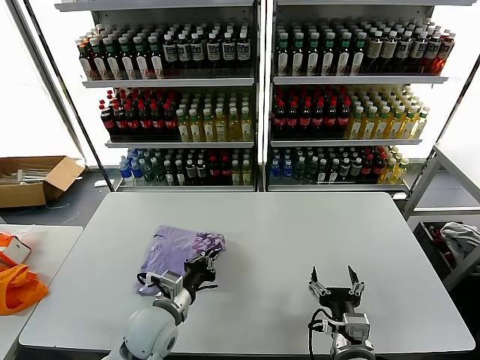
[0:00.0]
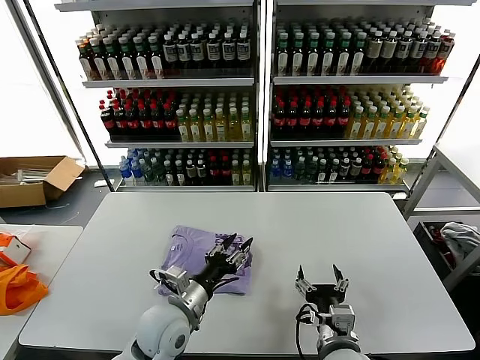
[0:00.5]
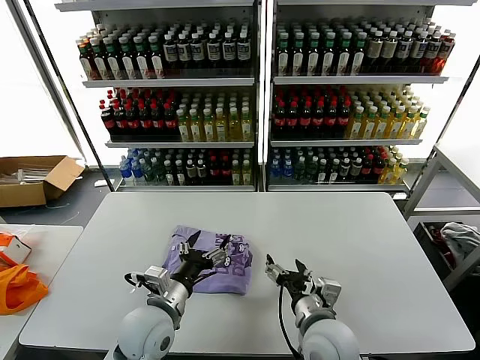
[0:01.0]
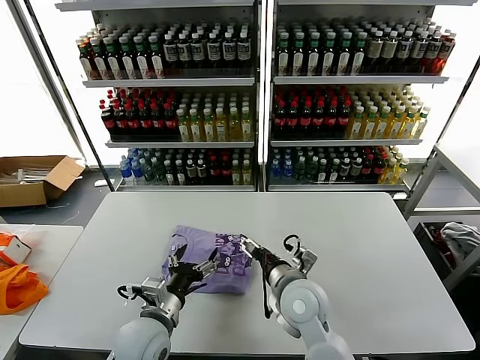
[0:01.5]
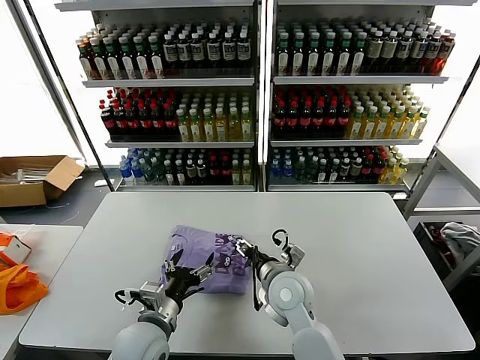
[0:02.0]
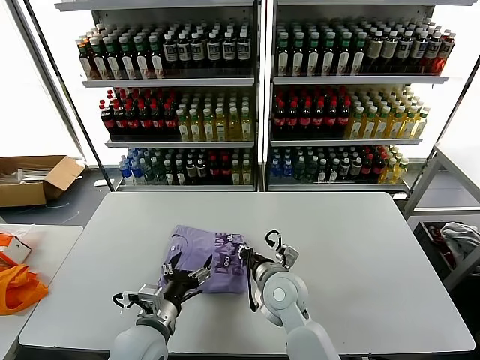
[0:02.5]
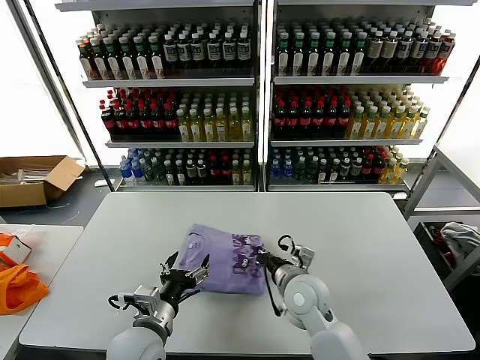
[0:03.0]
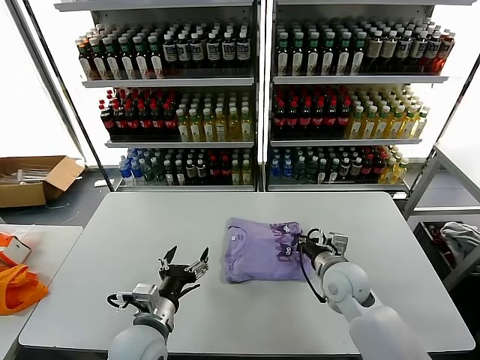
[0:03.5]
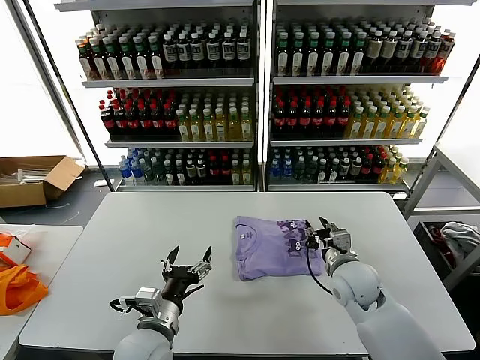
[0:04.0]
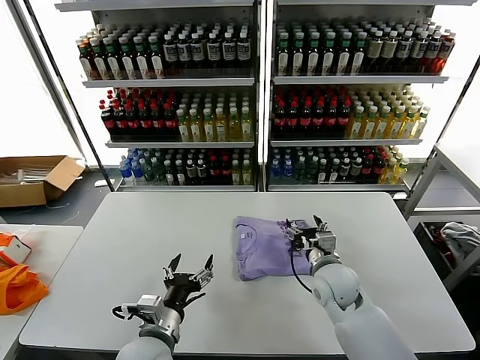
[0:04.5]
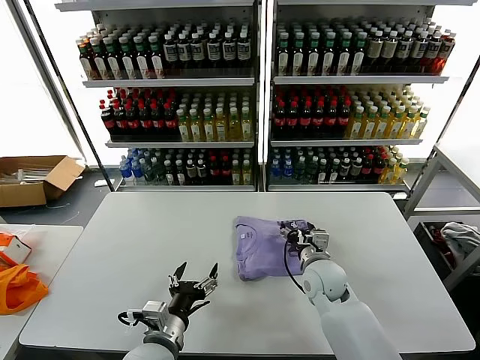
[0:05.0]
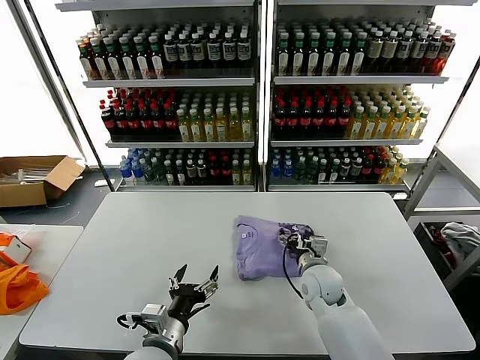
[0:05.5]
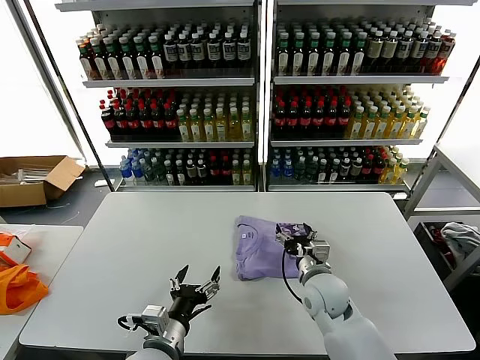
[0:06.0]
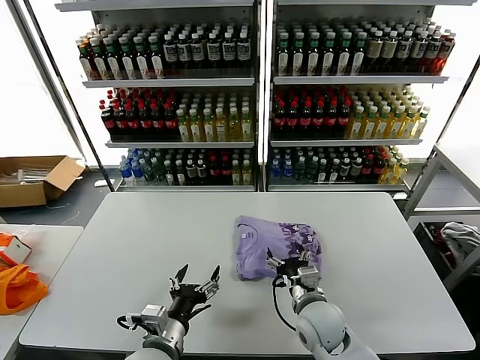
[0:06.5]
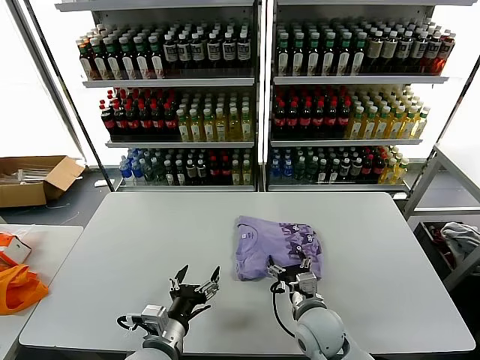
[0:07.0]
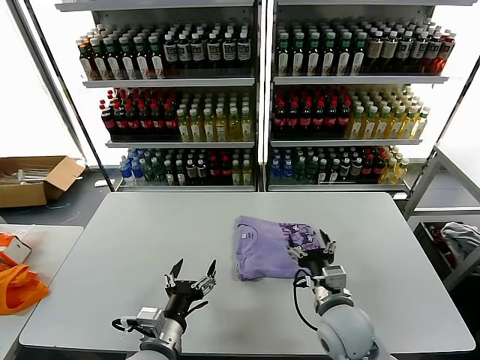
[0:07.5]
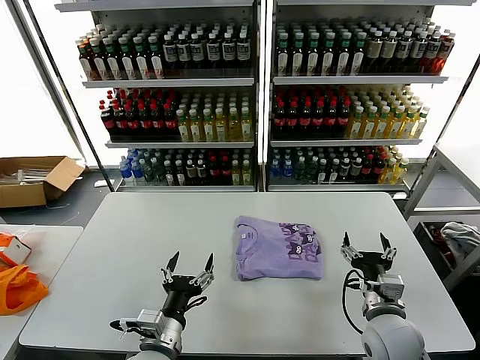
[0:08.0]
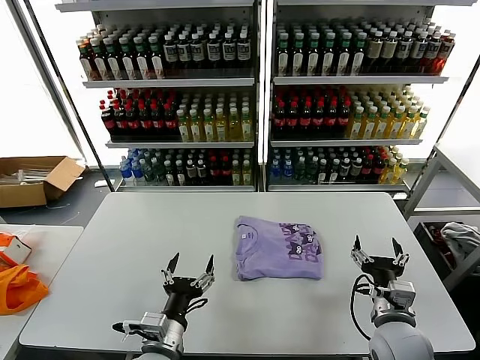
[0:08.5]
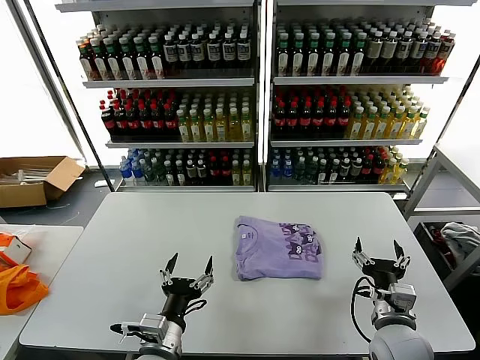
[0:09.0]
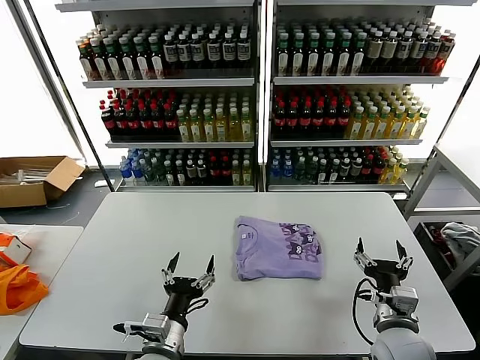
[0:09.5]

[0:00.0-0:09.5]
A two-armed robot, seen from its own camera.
Task of the whole recording: fold and organize the clothes.
Step, 0:01.0 to 0:07.0: Drag the clothes to the center of the table.
0:00.0 to 0:02.0: The left gripper opens up. Meanwhile the right gripper is displaced forward and to the left by roughly 20 cm.
0:02.0 to 0:04.0: The right gripper travels to the right by about 15 cm, and closes its fingers.
0:04.0 to 0:05.5: The right gripper goes about 10 cm to the left and downward, and opens.
0:05.5 to 0:07.5: The right gripper moves backward, some 10 cm.
0:07.5 to 0:09.5: The right gripper moves to the right, approximately 10 cm.
